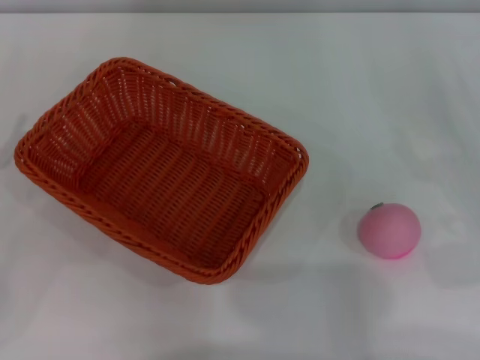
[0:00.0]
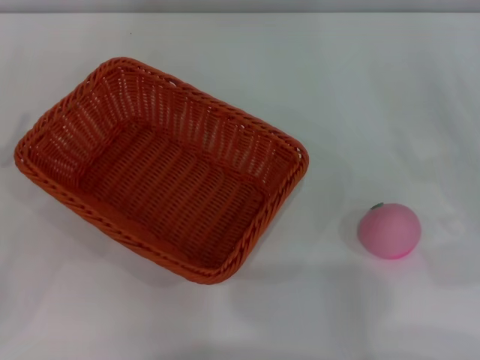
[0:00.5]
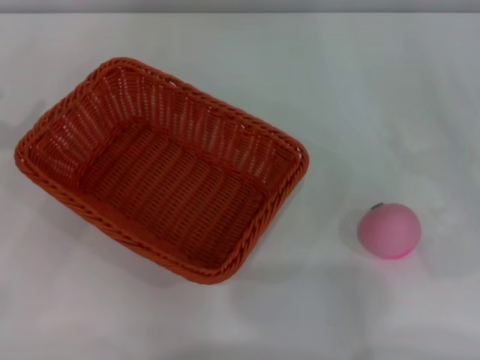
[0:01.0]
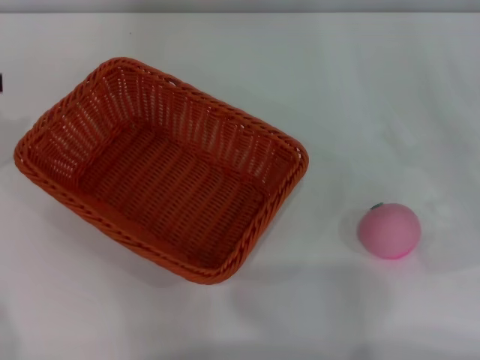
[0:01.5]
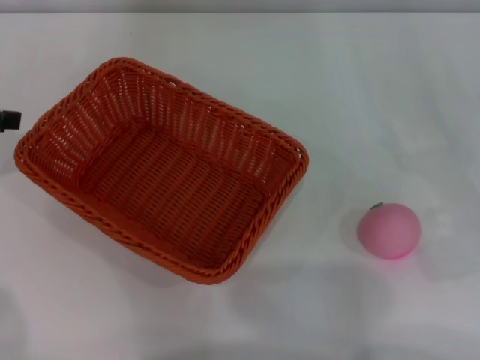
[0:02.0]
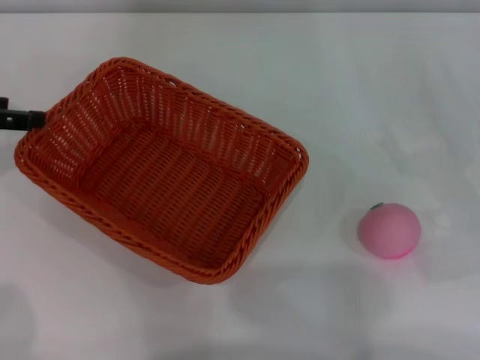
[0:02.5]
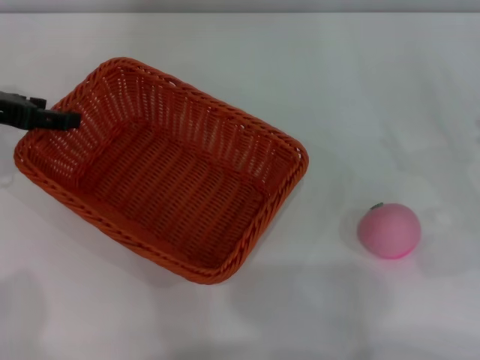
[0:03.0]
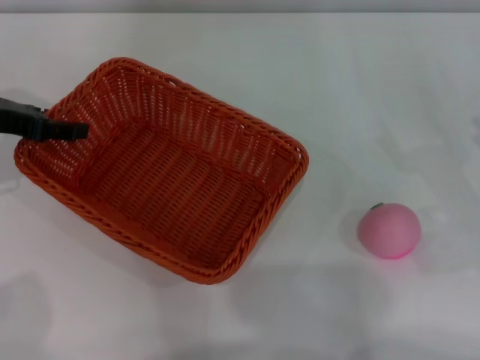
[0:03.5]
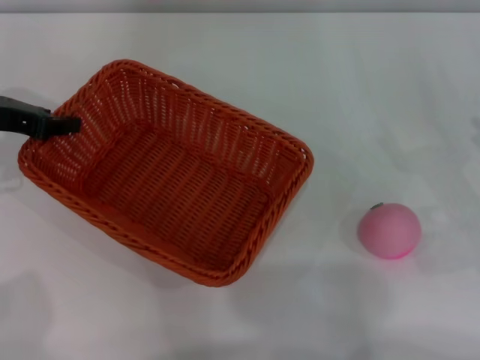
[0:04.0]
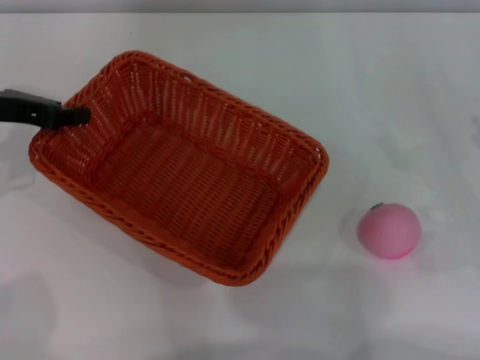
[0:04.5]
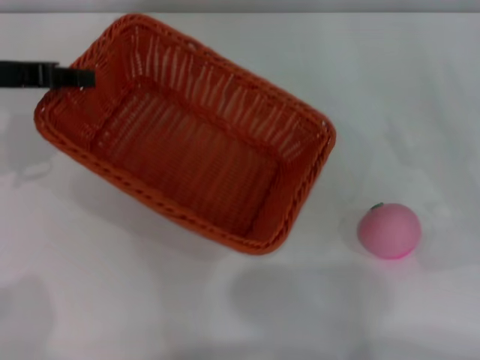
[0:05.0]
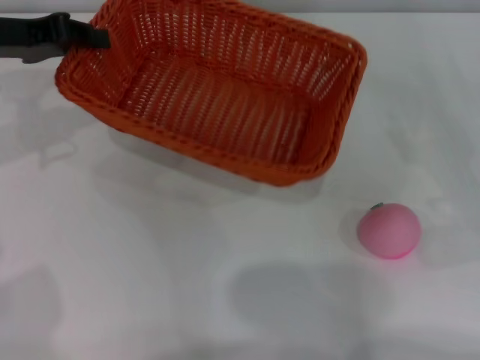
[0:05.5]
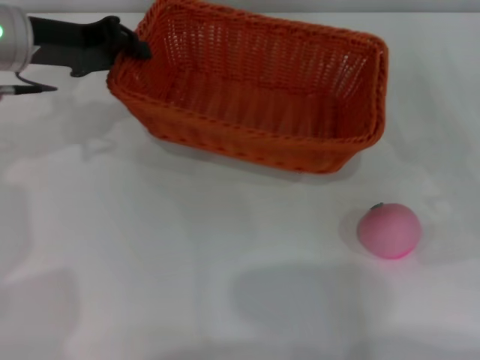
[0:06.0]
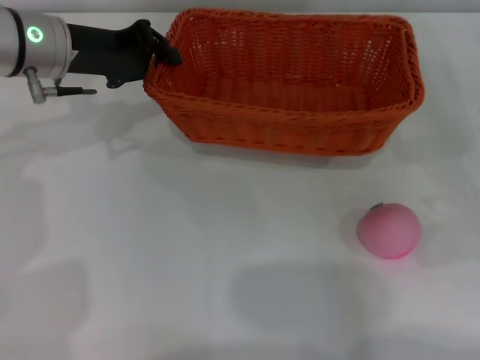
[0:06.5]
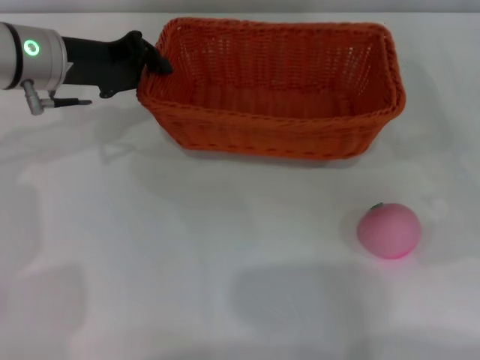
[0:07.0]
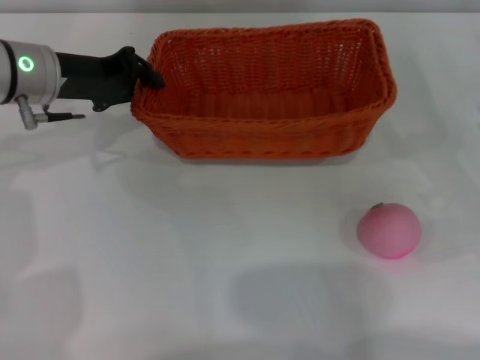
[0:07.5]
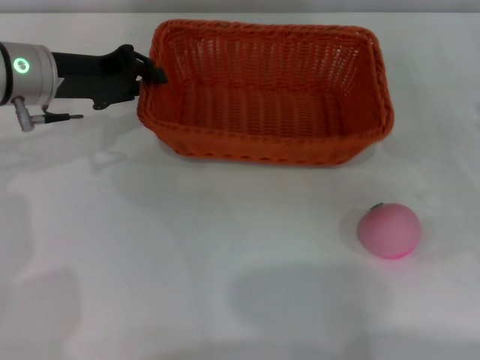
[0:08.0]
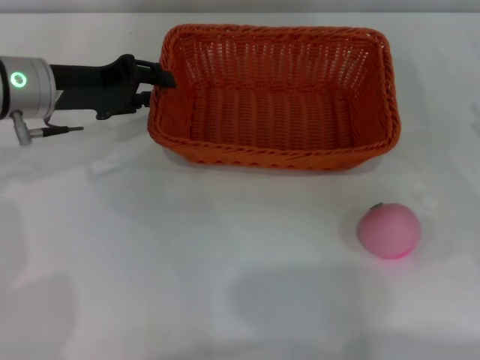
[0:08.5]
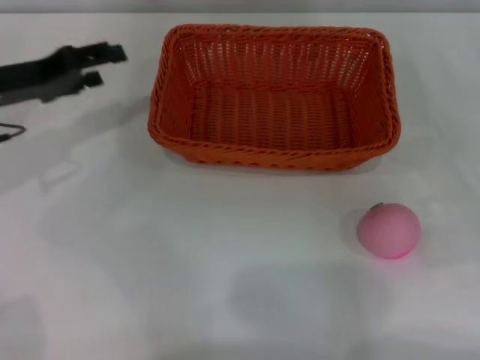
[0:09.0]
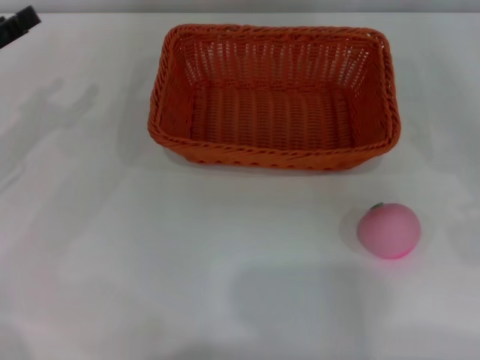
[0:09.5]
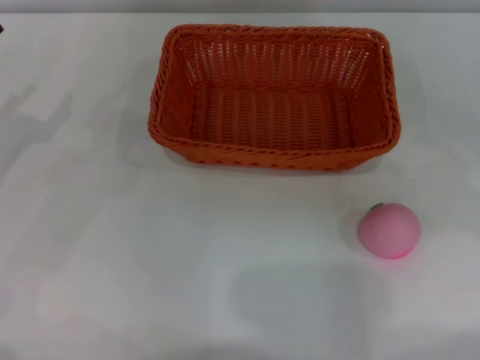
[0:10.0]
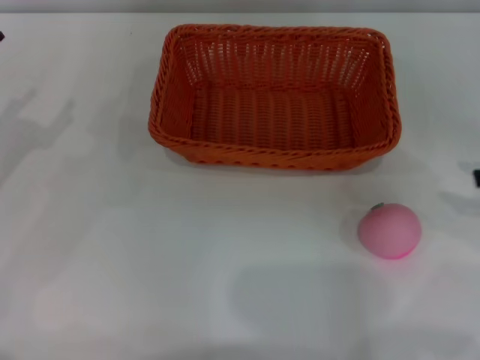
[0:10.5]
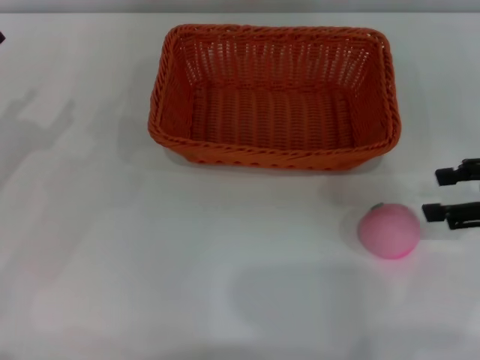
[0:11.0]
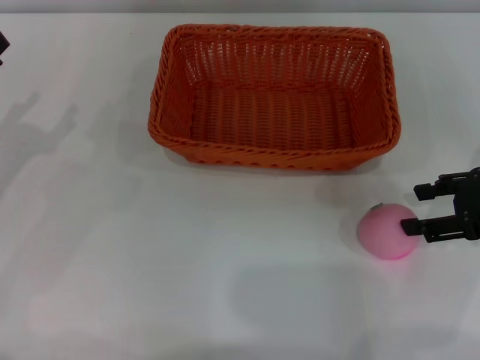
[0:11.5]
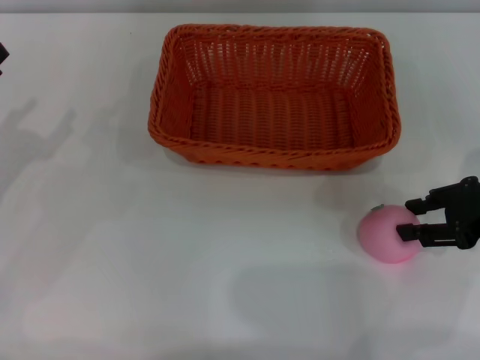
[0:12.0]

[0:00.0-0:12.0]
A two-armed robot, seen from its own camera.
Step, 0:00.0 to 0:04.5: Pick up the light basket with the left gripper.
Step, 0:05.0 to 0:08.5: Place the light basket in the center of view with the right gripper.
0:02.0 to 0:04.0: The left gripper goes roughly 10 cm to the right and downward, and closes up.
0:04.0 to 0:06.0: The left gripper travels to the right by approximately 10 cm, and closes.
0:06.0 to 0:08.0: The grippers move only a little.
0:08.0 to 0:10.0: The right gripper heads upward and to the right, covering about 10 cm, while the left gripper is displaced to the left and backward by about 15 cm, and opens.
0:10.0 to 0:12.0: The right gripper shifts some 15 cm to the left, downward and forward.

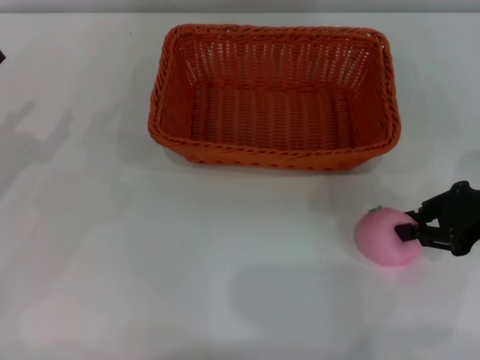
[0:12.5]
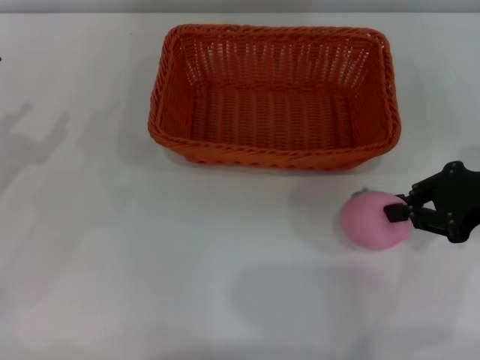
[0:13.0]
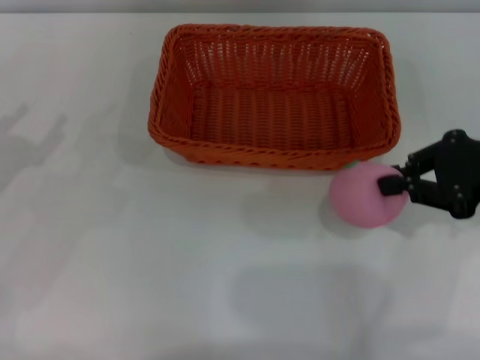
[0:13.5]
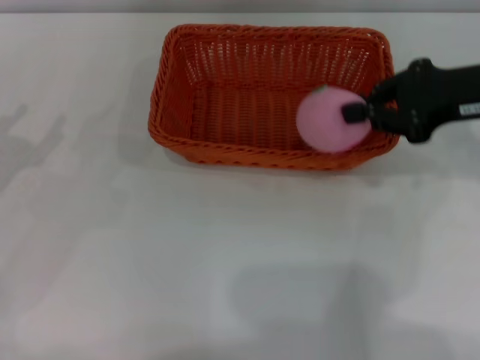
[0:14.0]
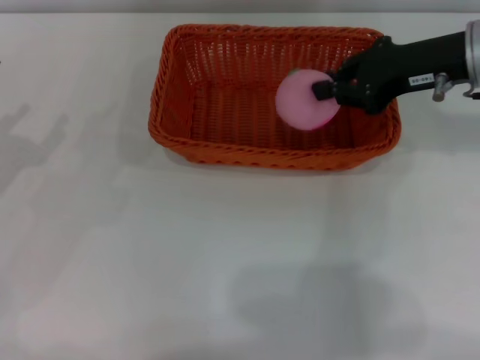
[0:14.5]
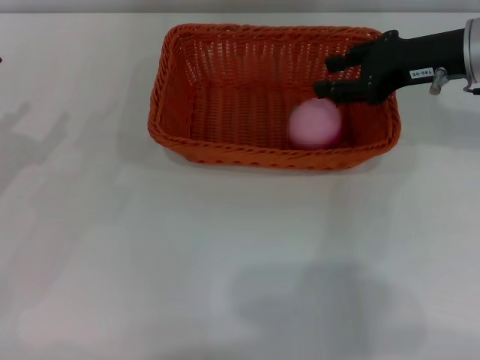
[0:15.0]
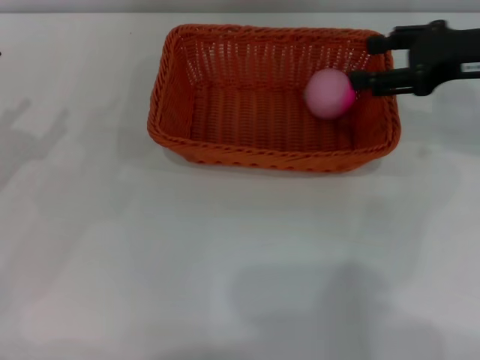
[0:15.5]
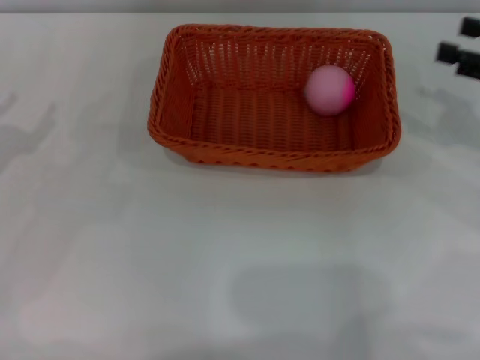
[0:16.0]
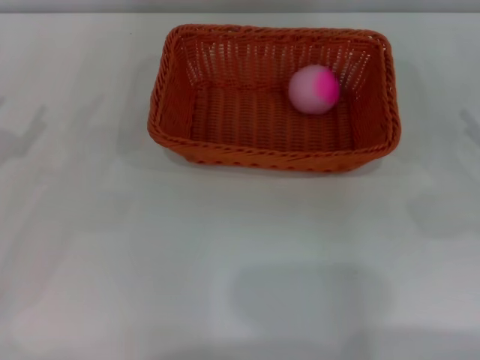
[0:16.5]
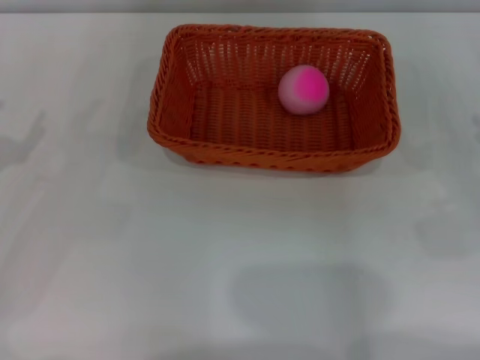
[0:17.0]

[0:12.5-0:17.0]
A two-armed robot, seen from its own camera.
0:12.5 to 0:14.5: The right gripper travels forward, upward and to the left by roughly 15 cm.
0:14.5 to 0:17.0: The right gripper moves backward, to the right and downward, some 25 cm, and opens its fingers.
